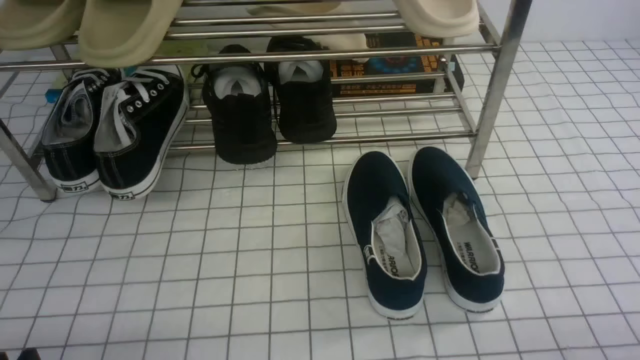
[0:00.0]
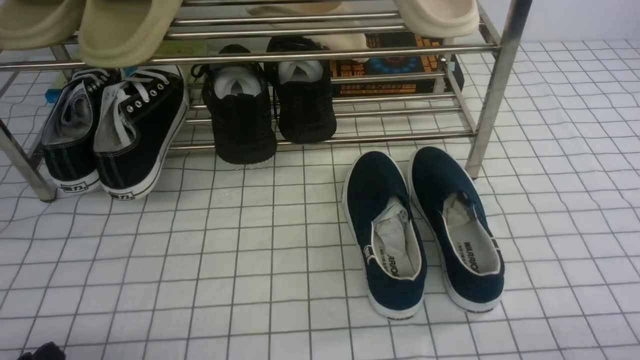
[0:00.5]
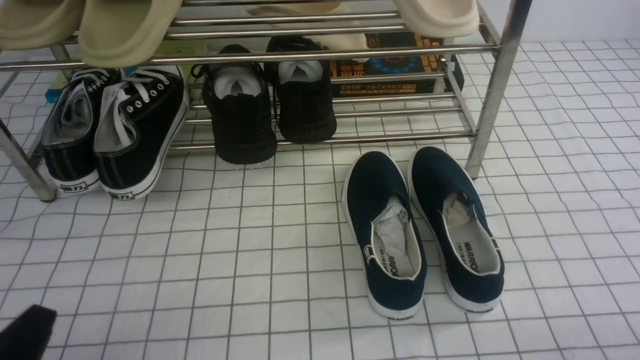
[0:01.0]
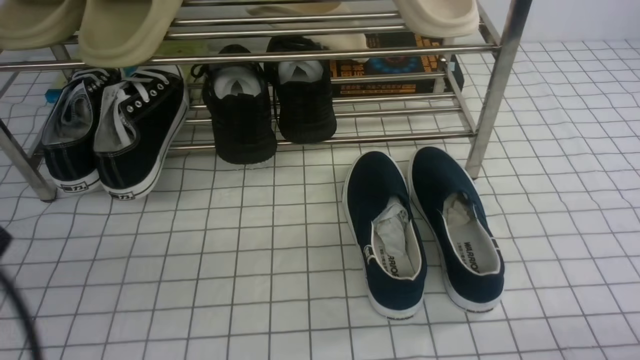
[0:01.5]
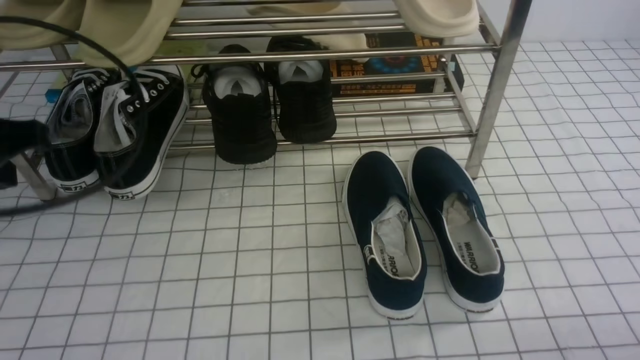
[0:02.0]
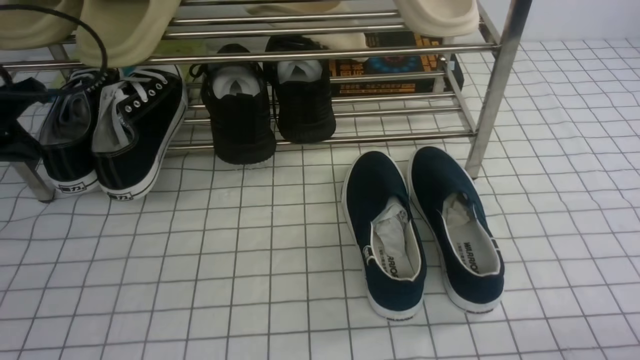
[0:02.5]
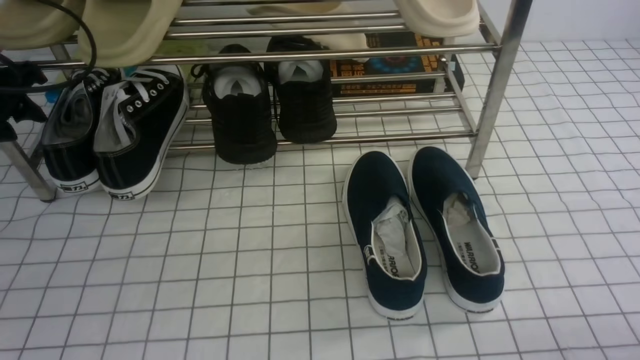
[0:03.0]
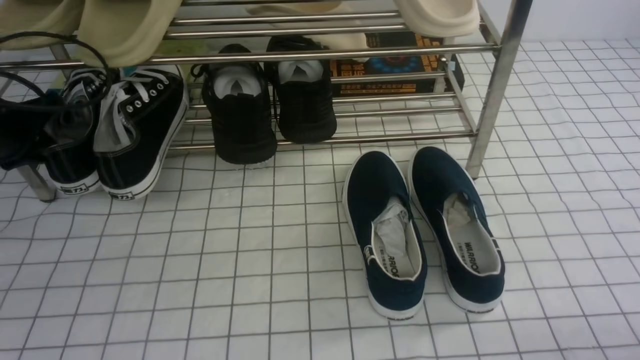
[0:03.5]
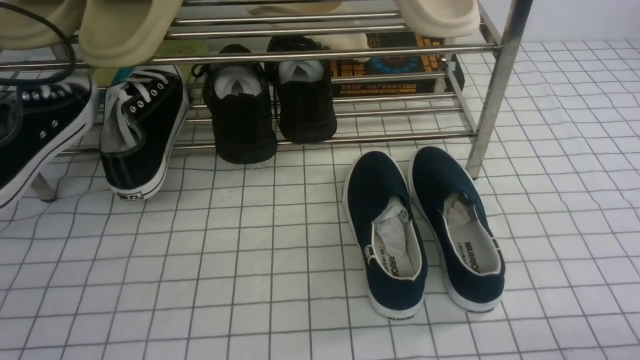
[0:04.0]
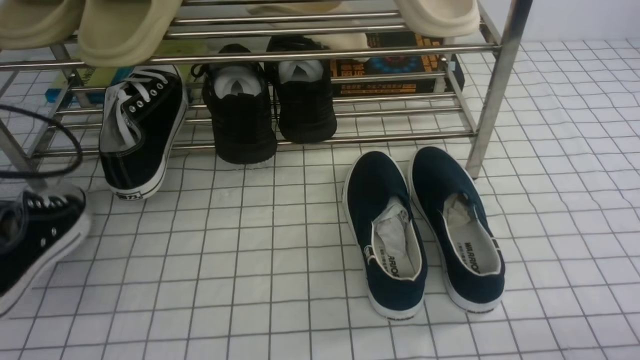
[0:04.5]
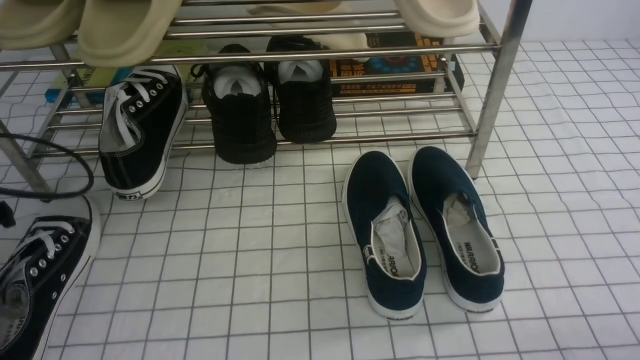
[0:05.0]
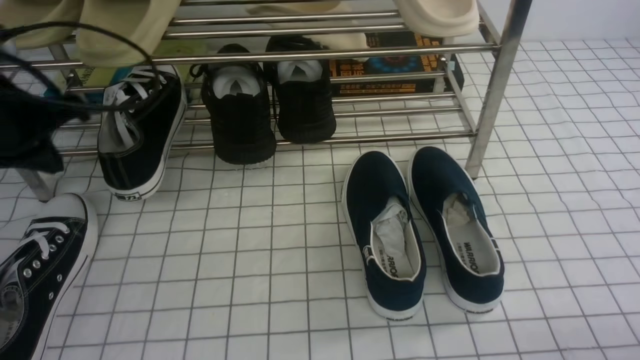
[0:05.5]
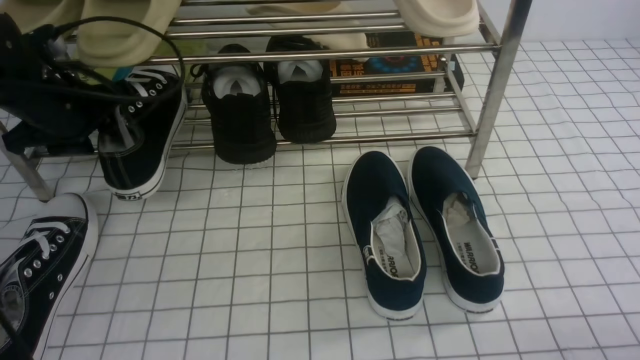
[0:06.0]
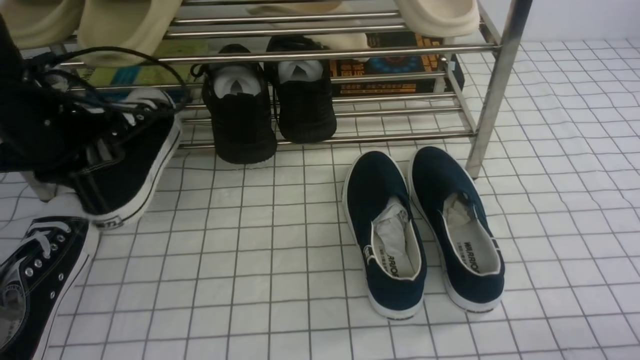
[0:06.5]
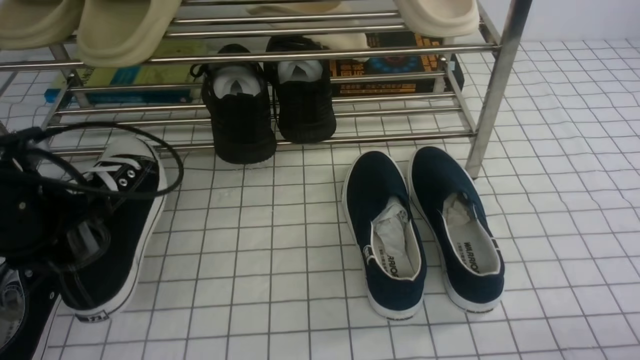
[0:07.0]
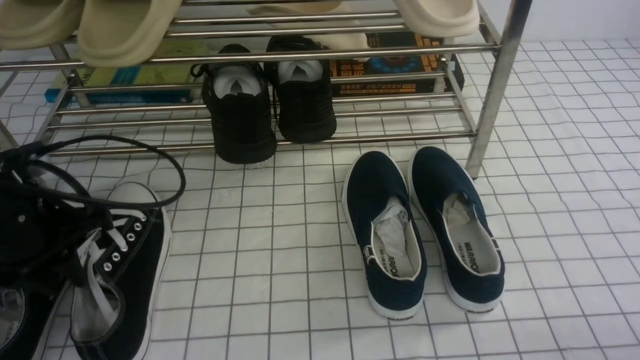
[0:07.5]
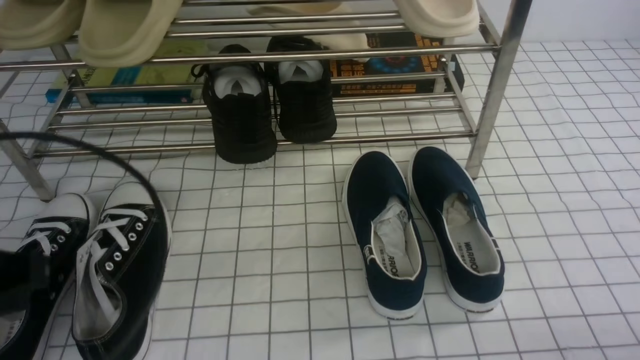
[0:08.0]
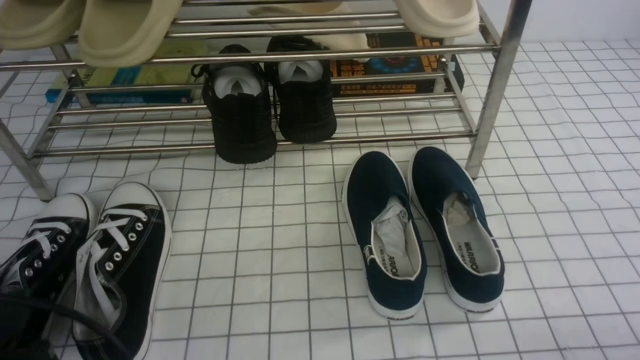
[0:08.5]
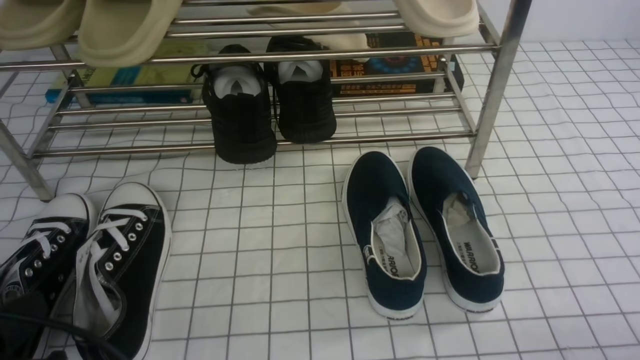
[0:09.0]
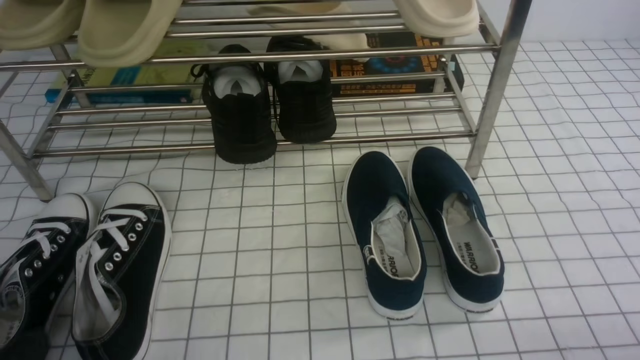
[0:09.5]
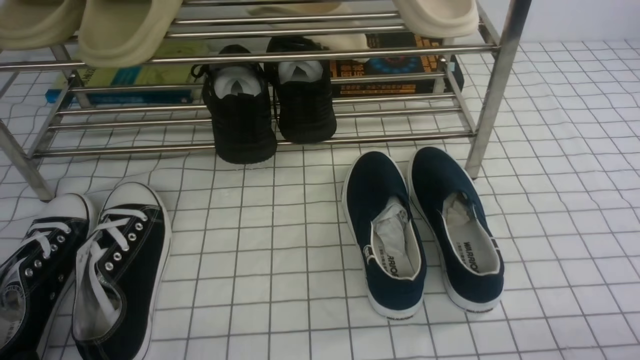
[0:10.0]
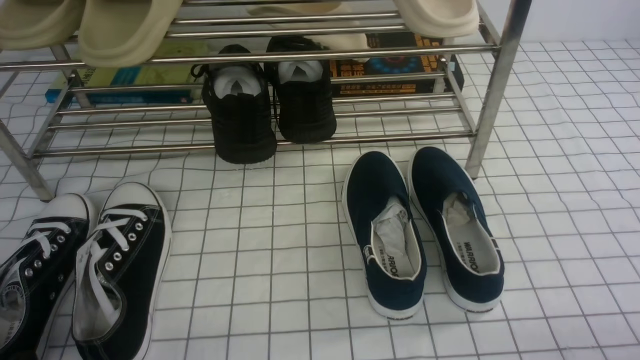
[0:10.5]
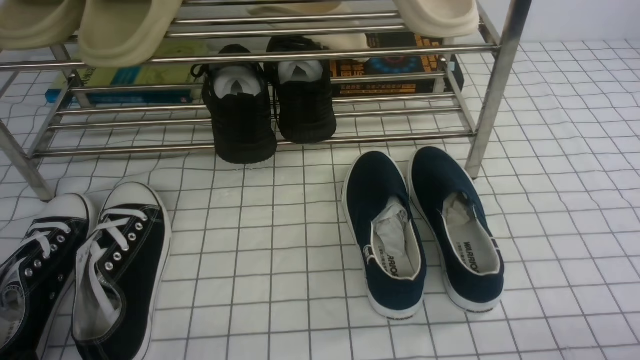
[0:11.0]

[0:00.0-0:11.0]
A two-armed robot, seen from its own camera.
Step, 0:00.0 to 0:03.5: use the left arm to clamp a shoe on the left side of the shoe rack.
Step, 0:04.0 to 0:05.0: Use your left arm to remove the clamped shoe from the shoe rack and put it down.
Step, 0:05.5 to 0:06.0: use the left arm to clamp a shoe on the left side of the shoe rack.
Step, 0:06.5 to 0:07.5: Use your left arm to remove the clamped shoe from the shoe rack and put it down.
0:02.0 to 0:03.5: The left gripper heads forward, downward and to the left, covering roughly 20 cm, and opens.
0:03.5 to 0:05.5: The left gripper moves backward and upward, some 10 cm, and closes.
0:05.5 to 0:07.5: The left gripper travels downward and backward by some 10 cm, and opens up.
0:07.5 to 0:09.0: The left gripper goes about 20 cm backward, and closes.
0:09.0 to 0:11.0: The left gripper is displaced downward by some 5 cm.
